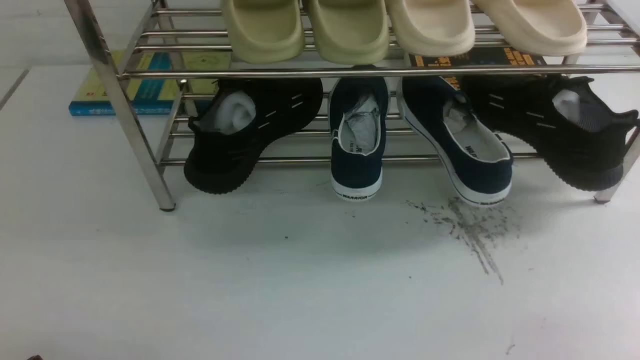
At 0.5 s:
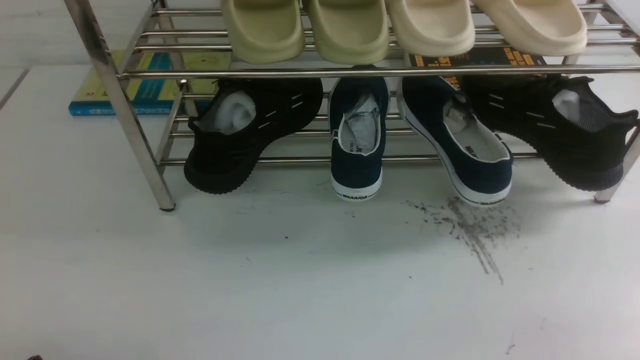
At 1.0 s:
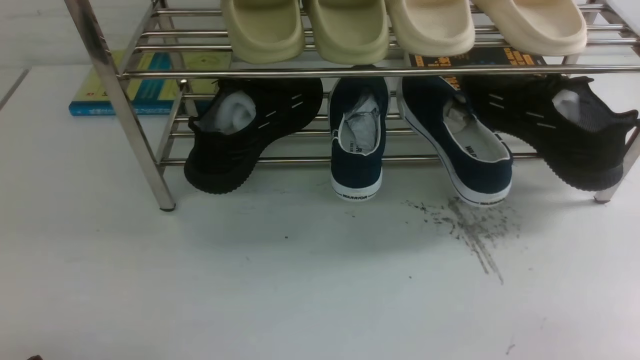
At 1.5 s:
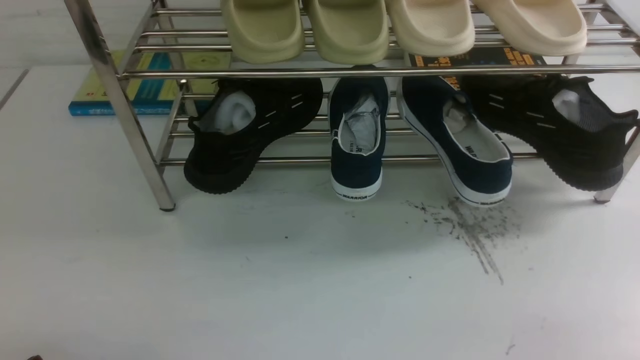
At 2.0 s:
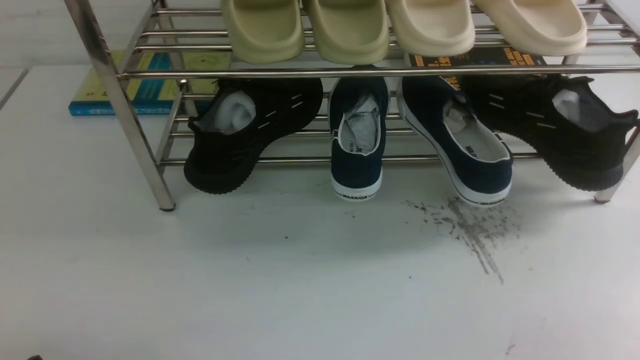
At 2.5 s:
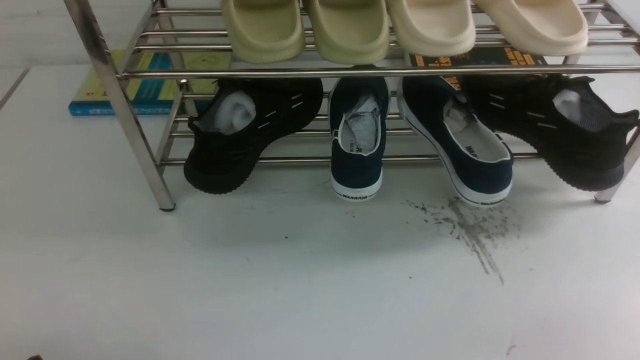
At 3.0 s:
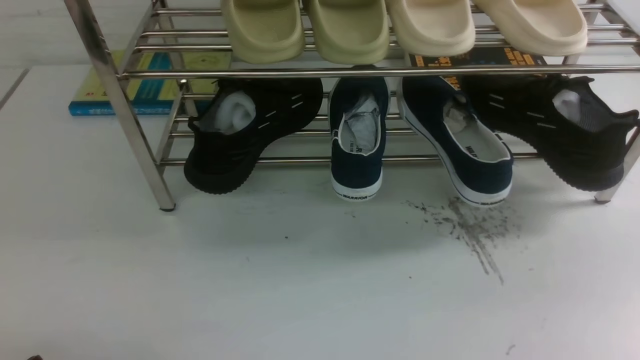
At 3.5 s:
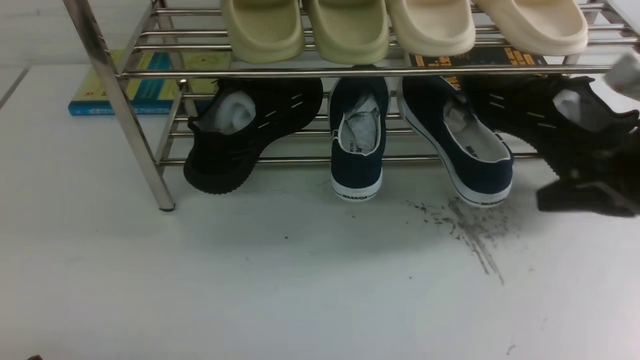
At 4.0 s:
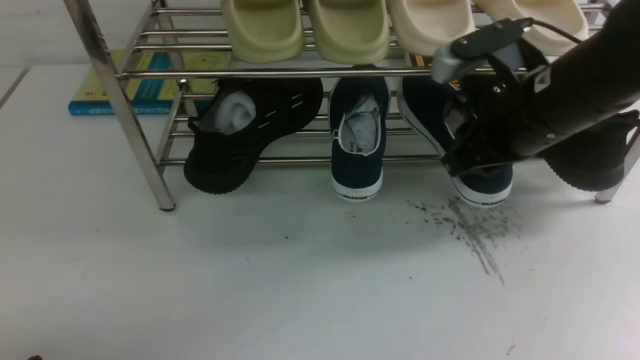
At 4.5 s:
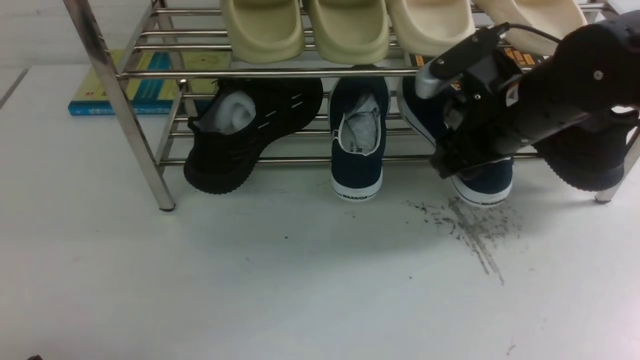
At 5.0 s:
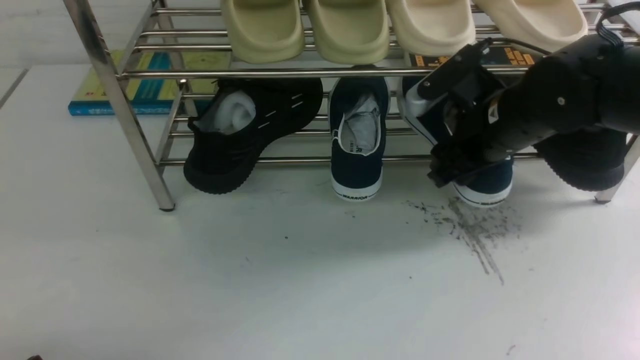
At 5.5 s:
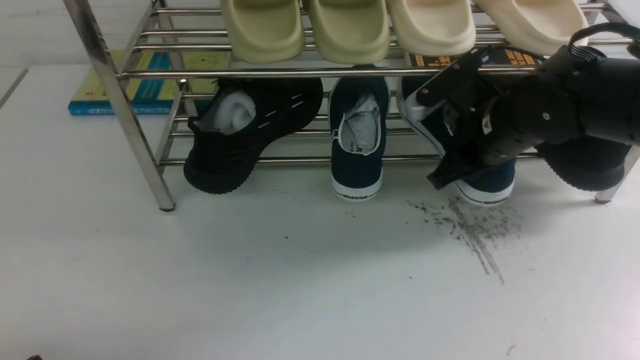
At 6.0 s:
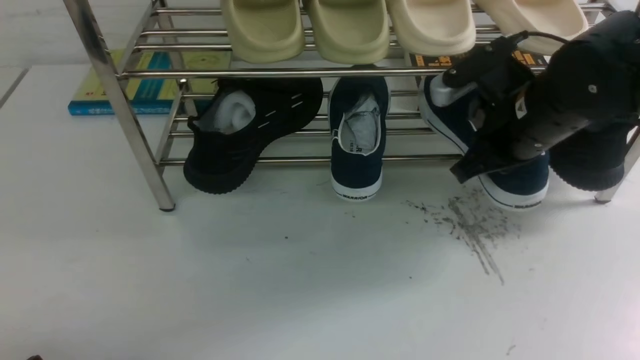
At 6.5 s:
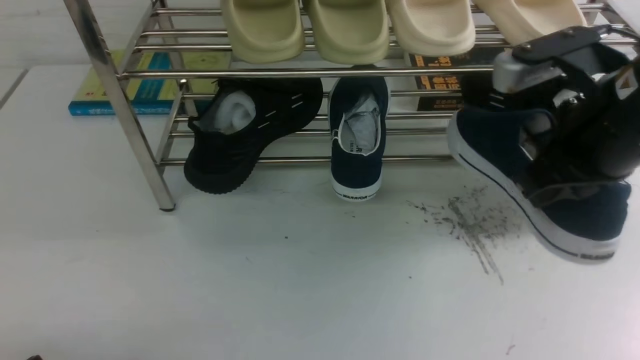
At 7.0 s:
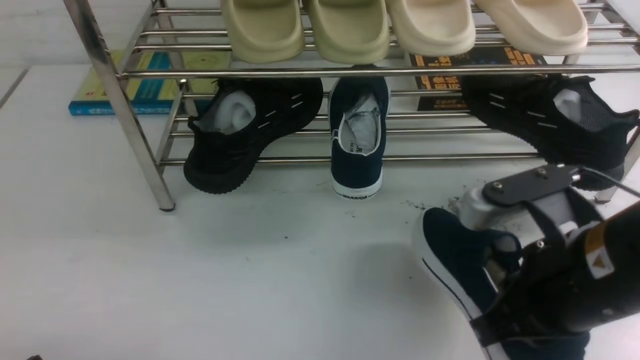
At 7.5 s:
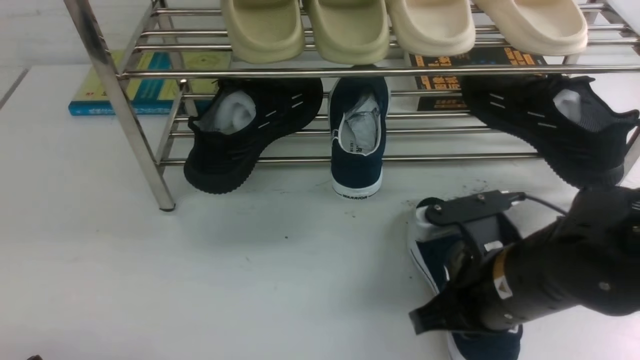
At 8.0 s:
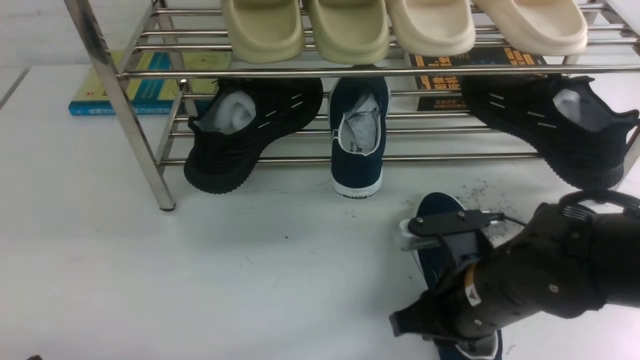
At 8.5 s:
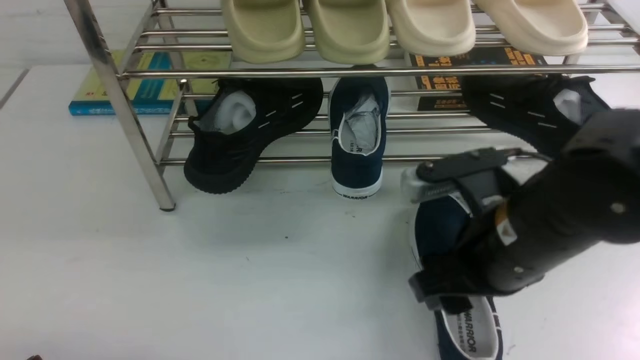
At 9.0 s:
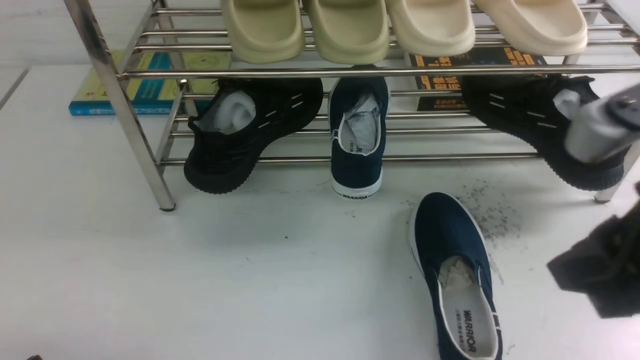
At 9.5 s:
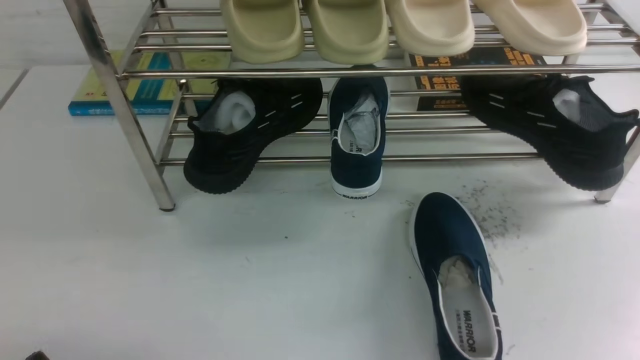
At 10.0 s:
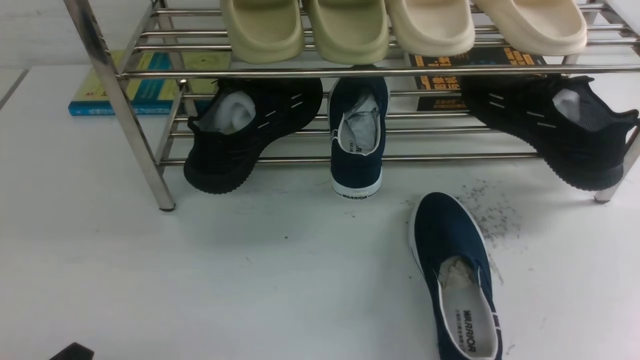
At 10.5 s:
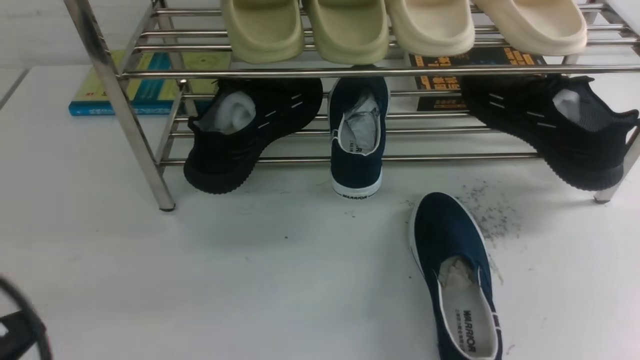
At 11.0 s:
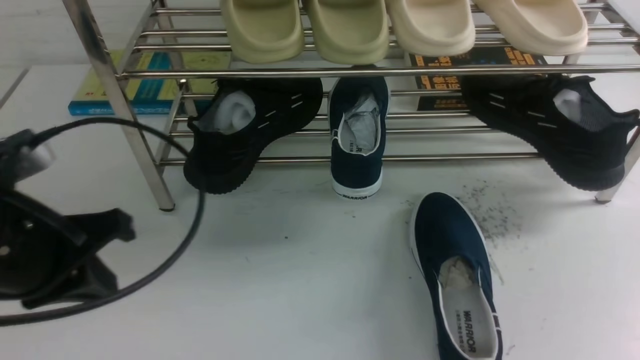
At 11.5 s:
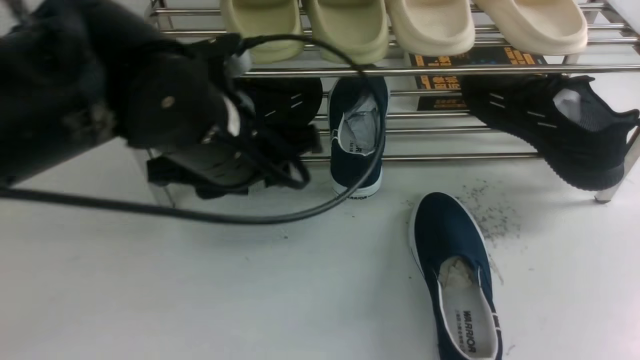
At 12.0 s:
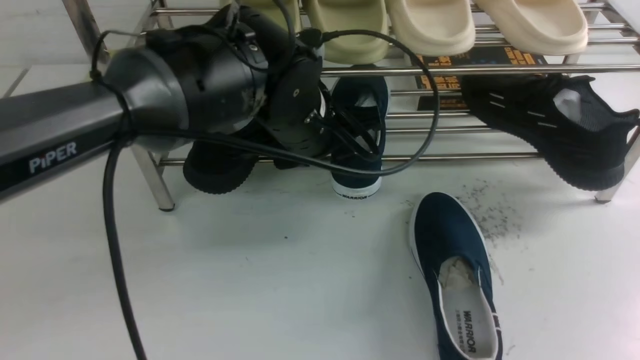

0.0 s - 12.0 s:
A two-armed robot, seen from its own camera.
Step, 0.0 s - 6.0 s: use the right arm to clamp a shoe in the middle of the shoe rack.
Step, 6.5 s - 8.5 s: use the right arm to take out the clamped shoe from the shoe rack and put it down.
2.0 s - 4.0 s: The right gripper moves forward, to the left and upward, about 30 cm, and closes and opens again.
4.0 s - 6.0 s: The right gripper closes up.
6.0 s - 8.0 s: The right gripper goes approximately 15 cm backward, downward and to the left, and opens its fingers.
8.0 s - 10.0 s: The right gripper moves backward, to the right and upward, roughly 30 cm, and opens, then closes again.
10.0 s - 12.0 s: The left gripper moves forward, to the right and upward, roughly 35 cm, and opens.

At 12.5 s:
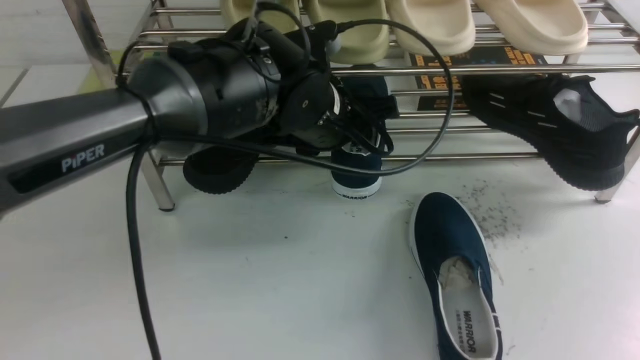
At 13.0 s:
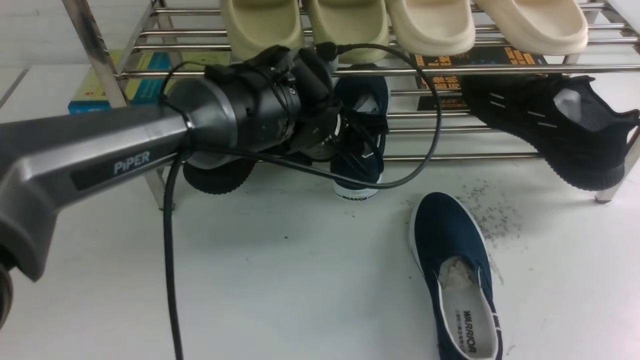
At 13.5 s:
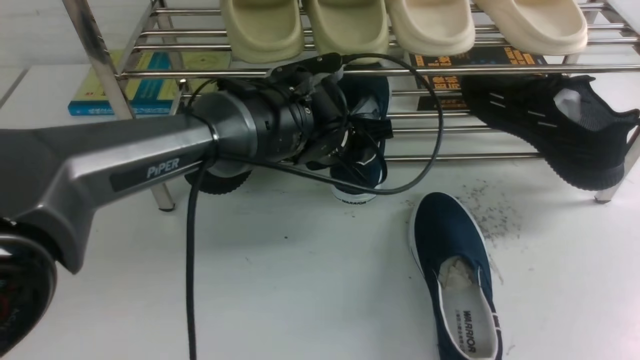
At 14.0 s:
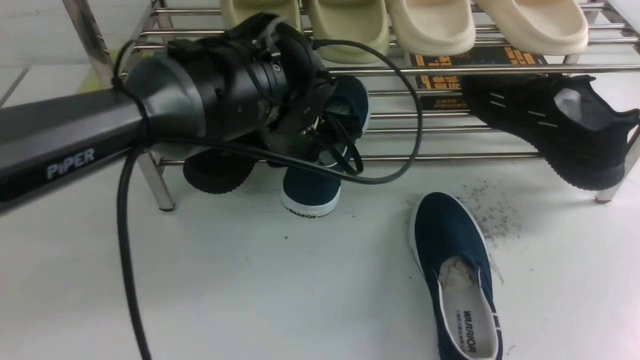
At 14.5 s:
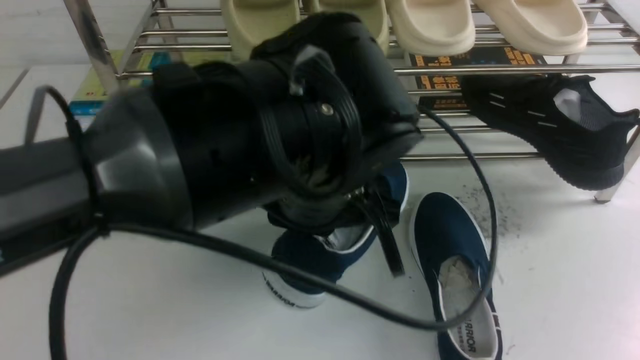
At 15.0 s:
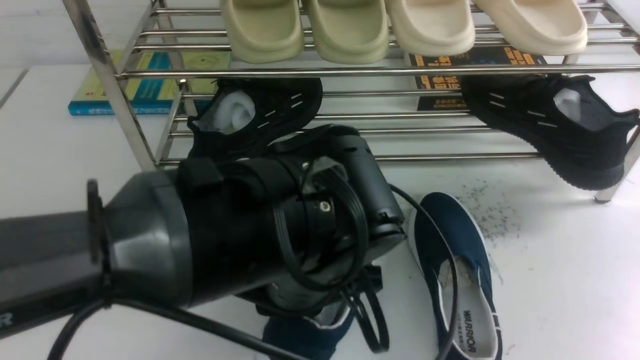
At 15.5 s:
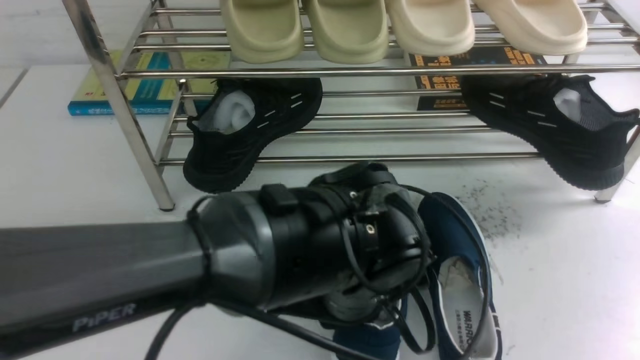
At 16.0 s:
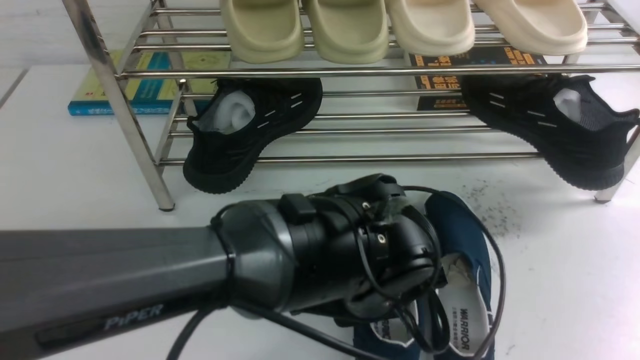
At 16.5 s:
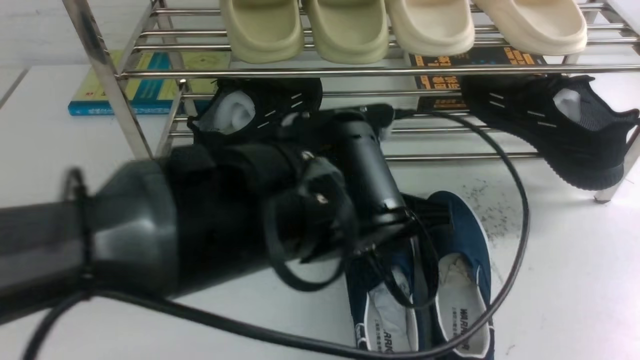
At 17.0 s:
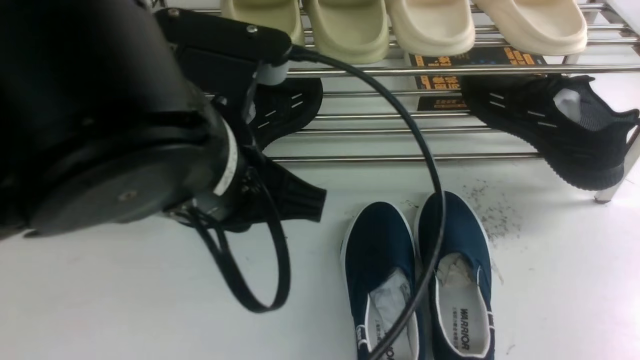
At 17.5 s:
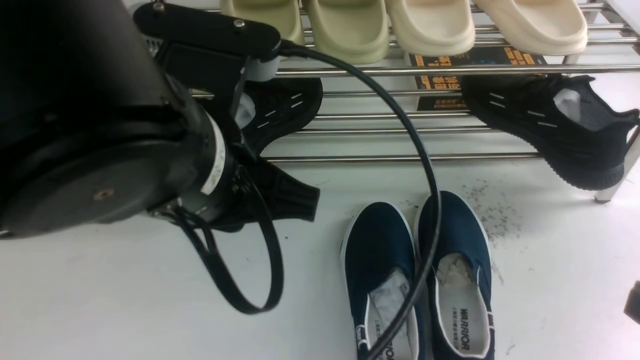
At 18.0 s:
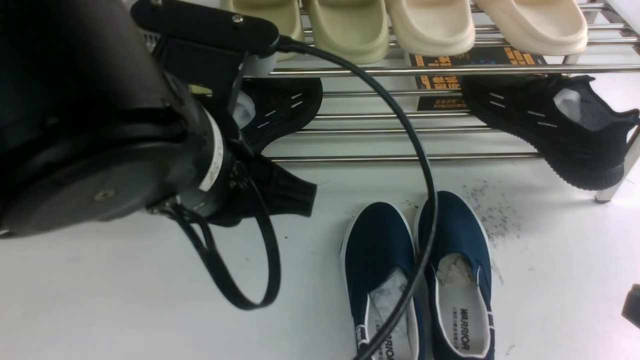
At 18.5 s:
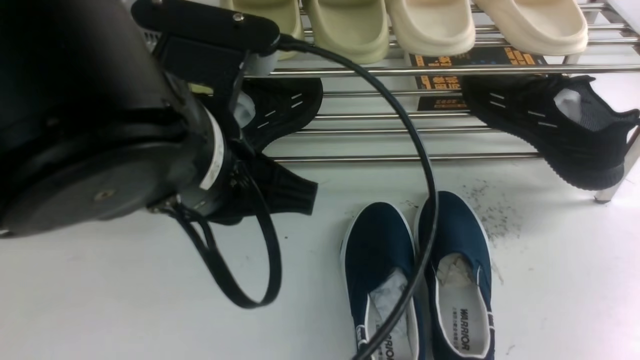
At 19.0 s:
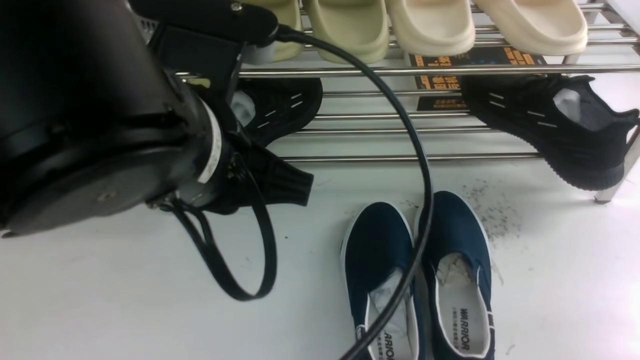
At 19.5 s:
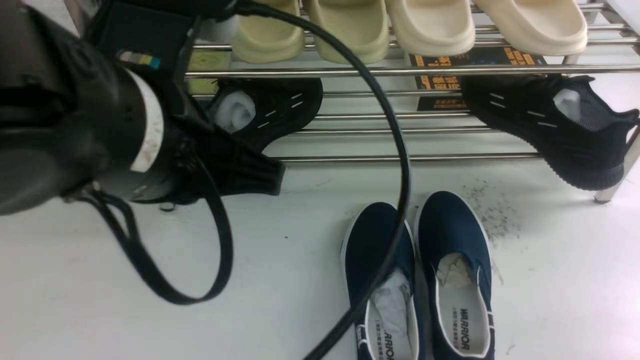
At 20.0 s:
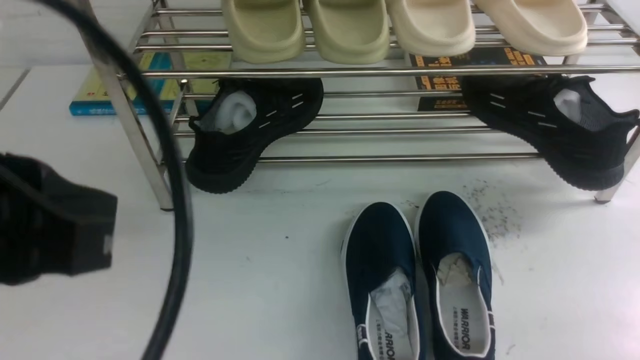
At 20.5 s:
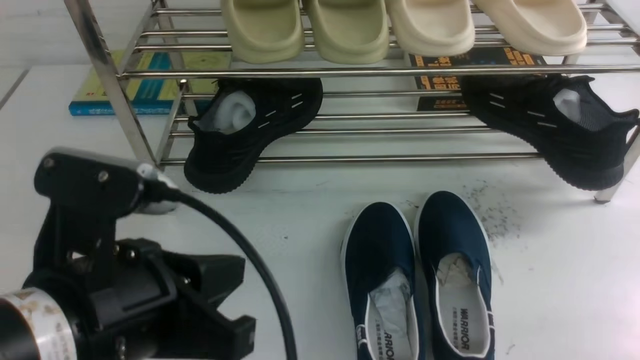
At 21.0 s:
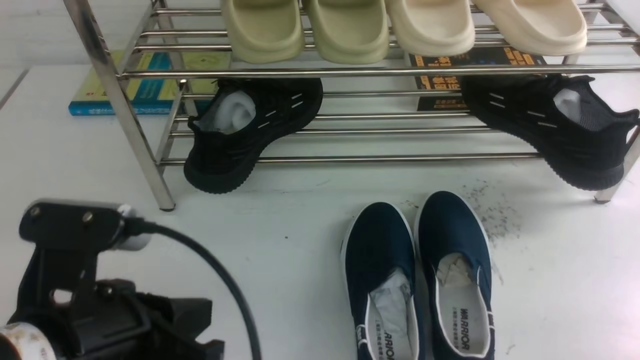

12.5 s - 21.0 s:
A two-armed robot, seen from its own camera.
Step, 14.5 s - 16.5 s: Use your left arm to remove the clamped shoe from the shoe rack and put it down.
12.5 s - 14.5 s: The left gripper moves backward, about 10 cm, and closes its fingers.
14.5 s - 16.5 s: The left gripper reaches some 10 cm downward, then returns, and opens.
16.5 s - 19.0 s: The left gripper shifts roughly 15 cm to the left and upward, and closes. Meanwhile the right gripper goes some 15 cm downward, and closes its fingers.
19.0 s - 21.0 s: The left gripper goes approximately 15 cm downward, to the left and backward.
